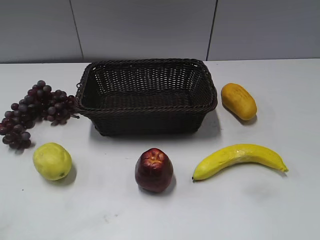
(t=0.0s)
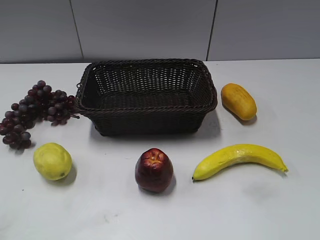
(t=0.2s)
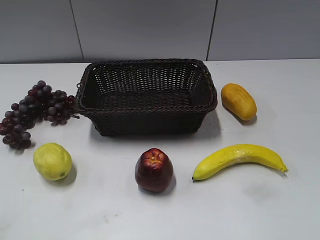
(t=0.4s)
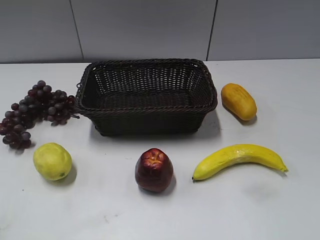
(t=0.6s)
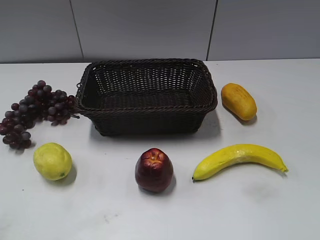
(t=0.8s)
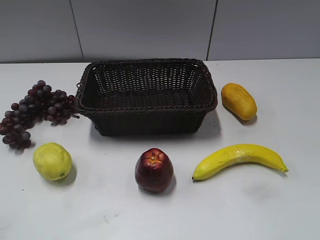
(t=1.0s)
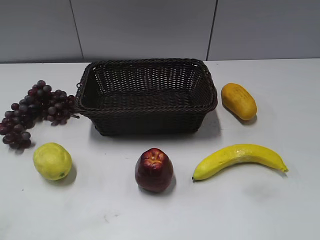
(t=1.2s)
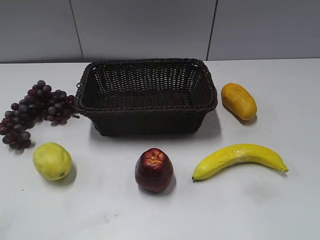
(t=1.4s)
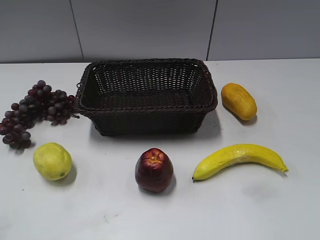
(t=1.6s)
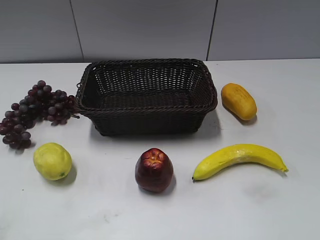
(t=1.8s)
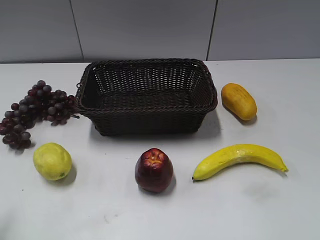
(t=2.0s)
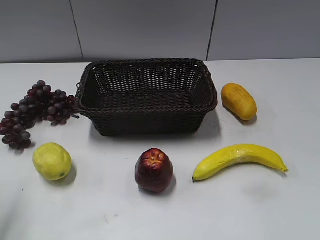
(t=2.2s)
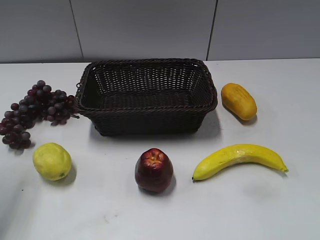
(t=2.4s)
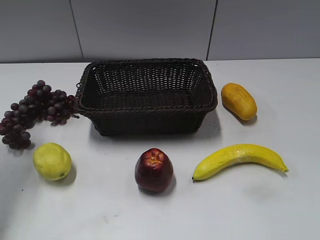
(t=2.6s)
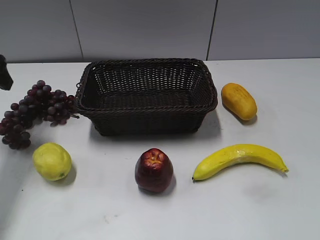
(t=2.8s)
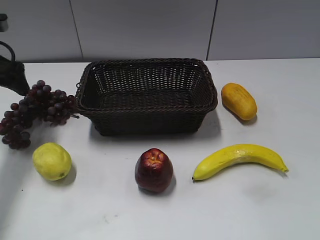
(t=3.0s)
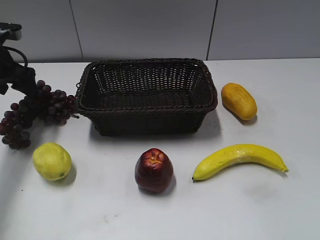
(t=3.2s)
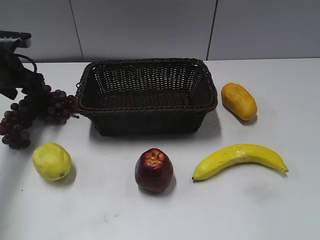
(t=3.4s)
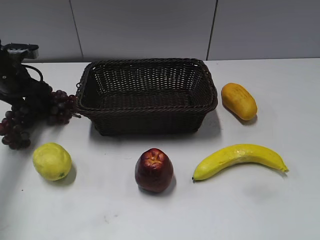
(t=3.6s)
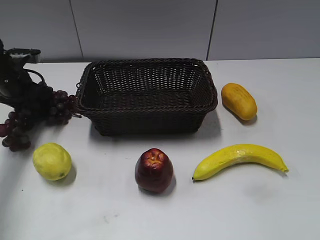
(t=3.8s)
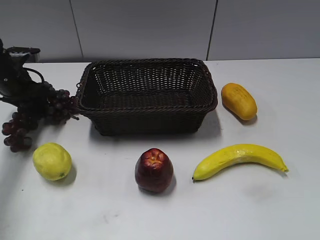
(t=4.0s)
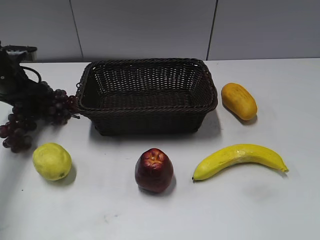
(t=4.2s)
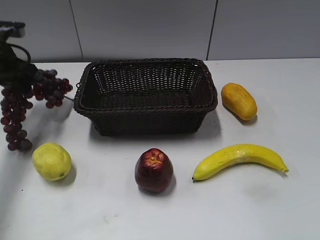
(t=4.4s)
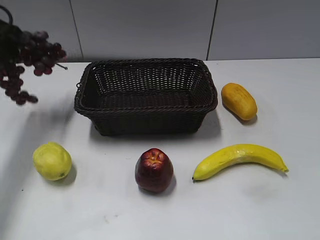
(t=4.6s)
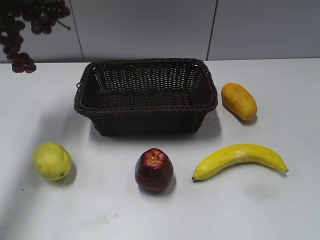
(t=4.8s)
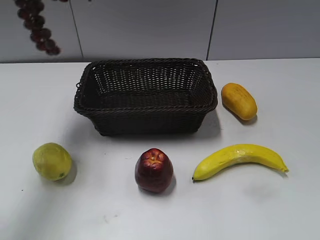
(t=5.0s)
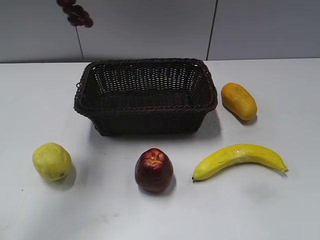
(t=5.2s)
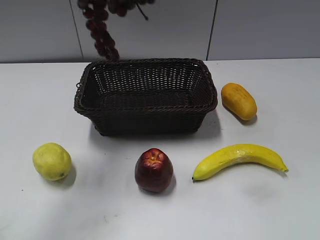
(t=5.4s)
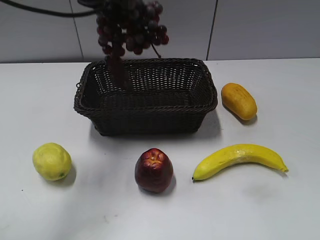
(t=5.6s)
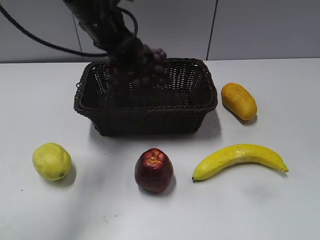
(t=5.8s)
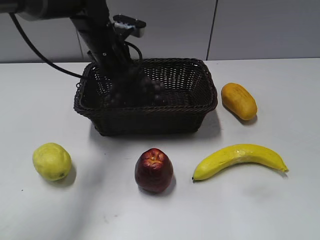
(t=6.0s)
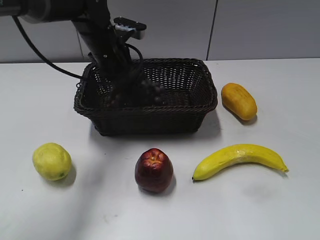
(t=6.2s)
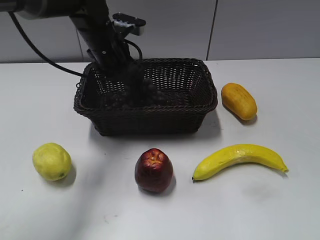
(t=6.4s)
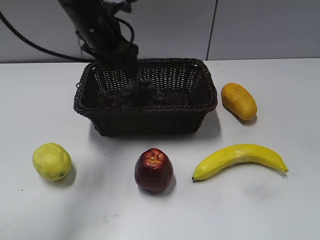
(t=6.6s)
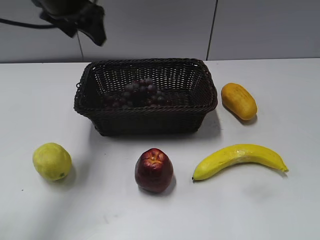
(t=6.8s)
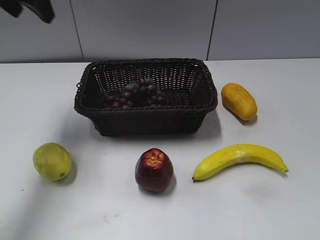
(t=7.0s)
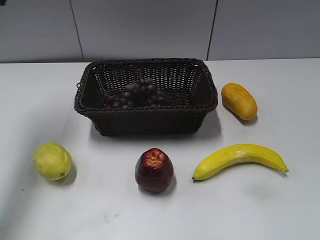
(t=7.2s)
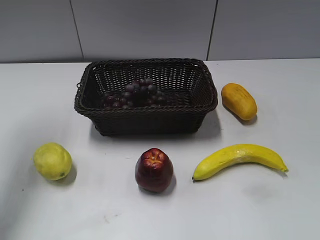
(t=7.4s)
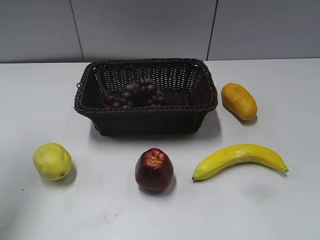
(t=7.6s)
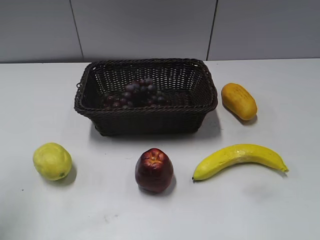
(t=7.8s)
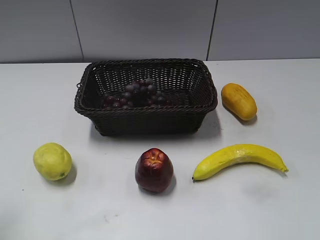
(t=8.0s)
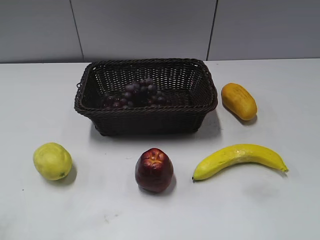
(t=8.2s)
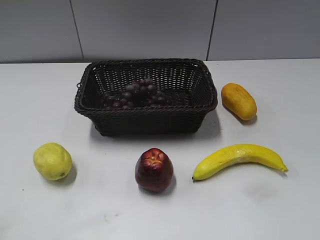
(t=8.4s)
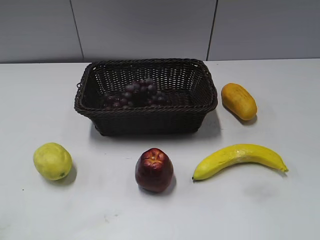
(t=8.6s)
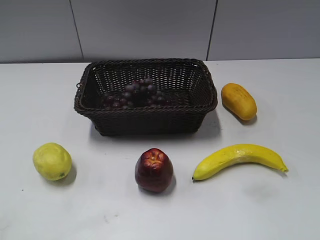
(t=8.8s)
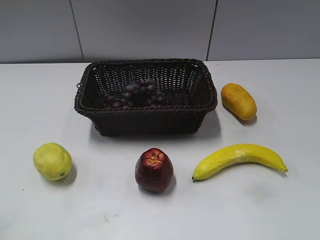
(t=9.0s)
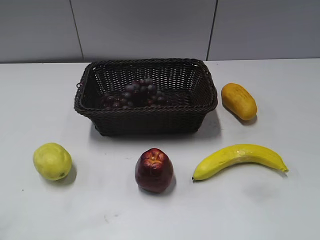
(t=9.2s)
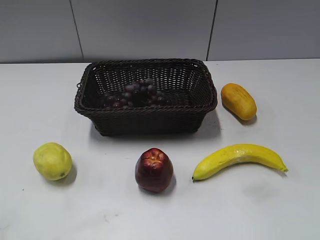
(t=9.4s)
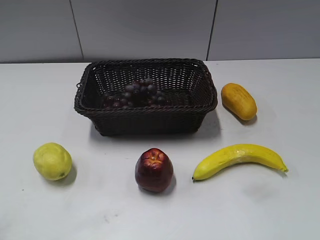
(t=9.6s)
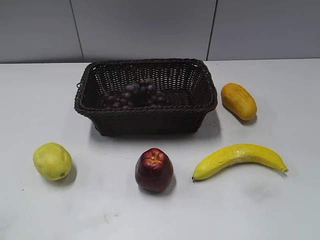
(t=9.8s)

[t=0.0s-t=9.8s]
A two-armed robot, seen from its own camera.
Step, t=2.8s to t=3.6s: Grasp the grape with left gripper.
Step, t=4.0s to t=6.2s: Place the grape in the basket with left gripper.
t=1.4s to t=2.8s: The left gripper moves forward, some 35 cm.
t=2.8s to t=4.2s: The left gripper moves downward and forward, about 15 cm, and closes up.
t=4.2s to t=5.6s: The left gripper is displaced to the right and upward by some 25 cm.
t=5.6s to t=7.0s: The left gripper heads to the left, covering roughly 10 cm, goes downward and returns, some 15 cm each way, and opens up.
t=7.0s to t=8.4s: The left gripper shifts approximately 35 cm backward.

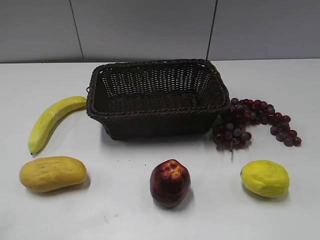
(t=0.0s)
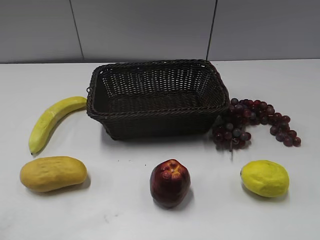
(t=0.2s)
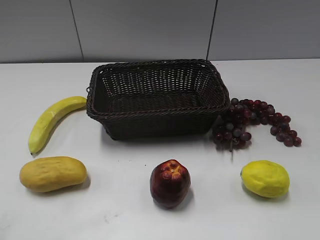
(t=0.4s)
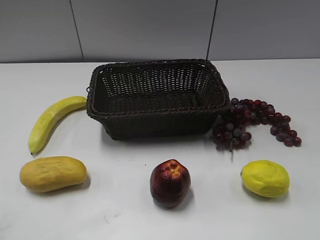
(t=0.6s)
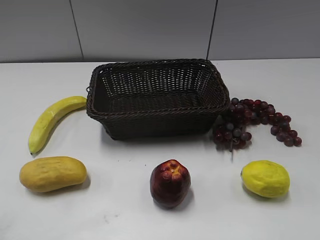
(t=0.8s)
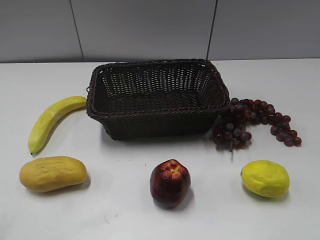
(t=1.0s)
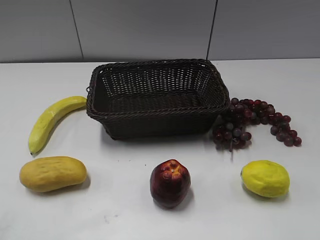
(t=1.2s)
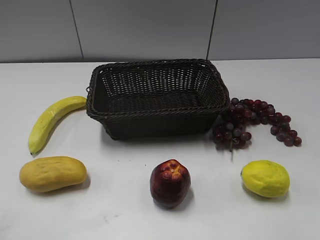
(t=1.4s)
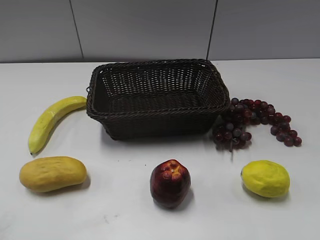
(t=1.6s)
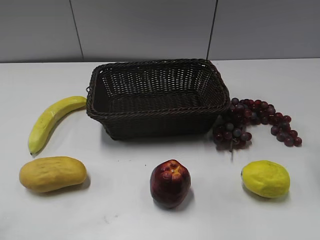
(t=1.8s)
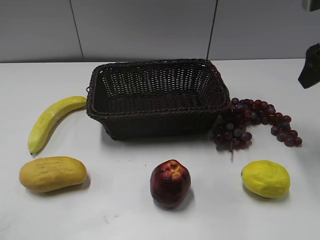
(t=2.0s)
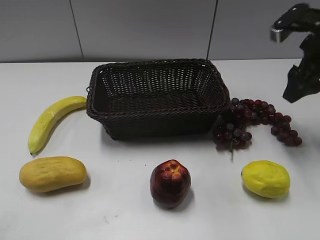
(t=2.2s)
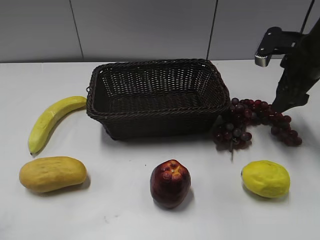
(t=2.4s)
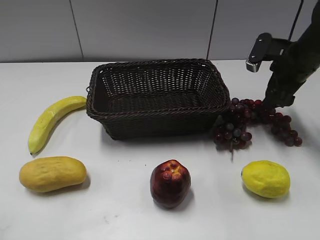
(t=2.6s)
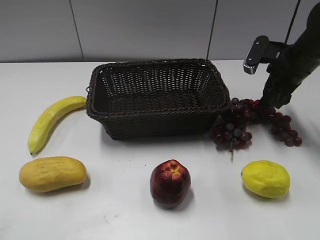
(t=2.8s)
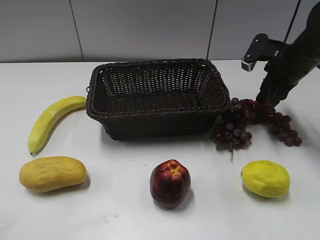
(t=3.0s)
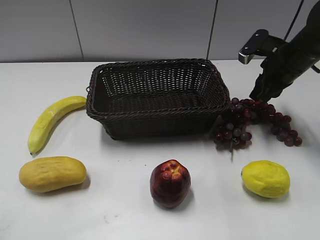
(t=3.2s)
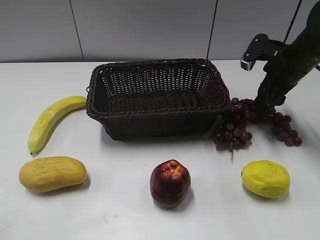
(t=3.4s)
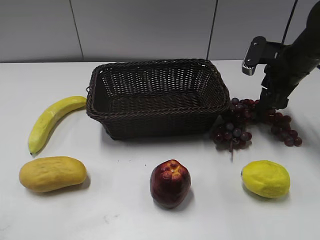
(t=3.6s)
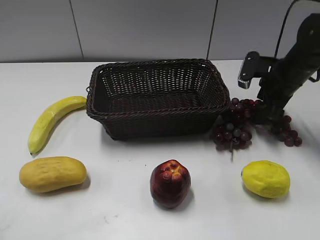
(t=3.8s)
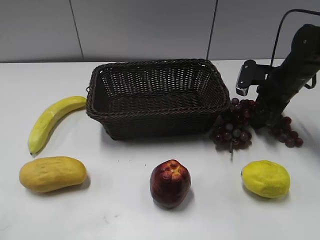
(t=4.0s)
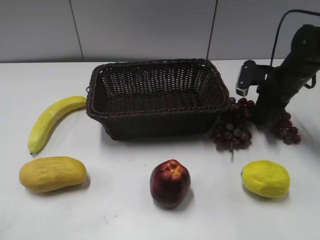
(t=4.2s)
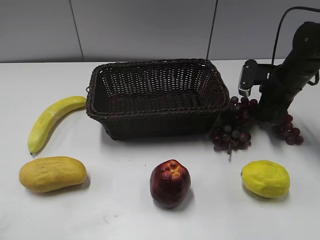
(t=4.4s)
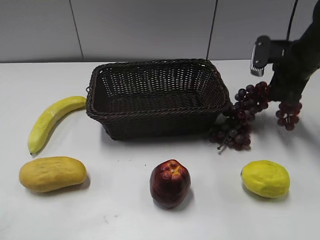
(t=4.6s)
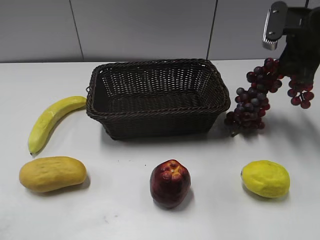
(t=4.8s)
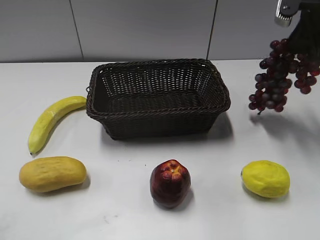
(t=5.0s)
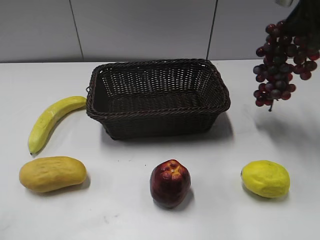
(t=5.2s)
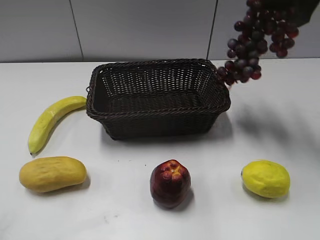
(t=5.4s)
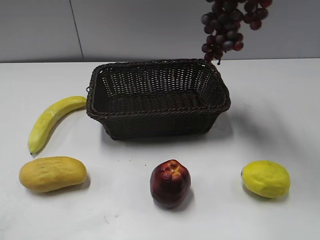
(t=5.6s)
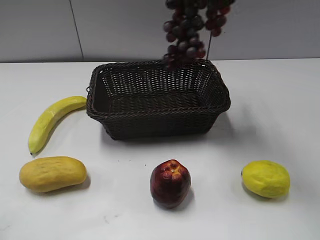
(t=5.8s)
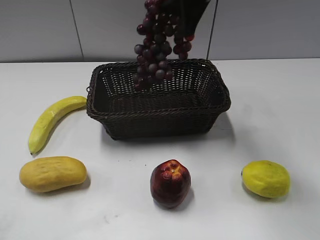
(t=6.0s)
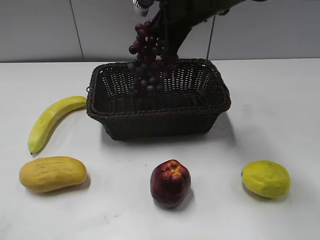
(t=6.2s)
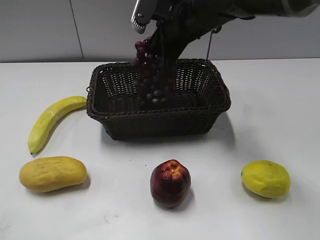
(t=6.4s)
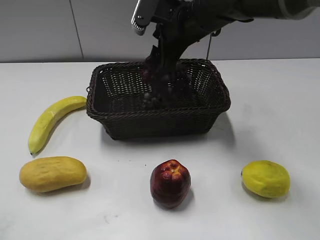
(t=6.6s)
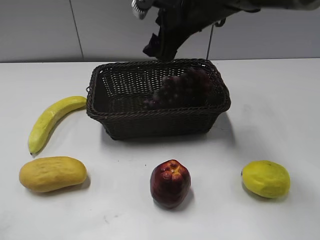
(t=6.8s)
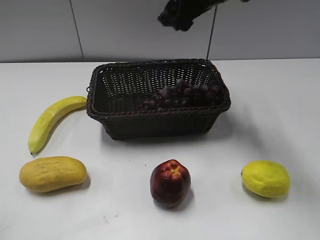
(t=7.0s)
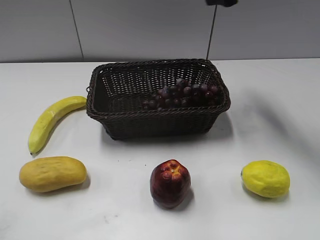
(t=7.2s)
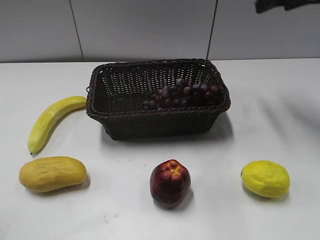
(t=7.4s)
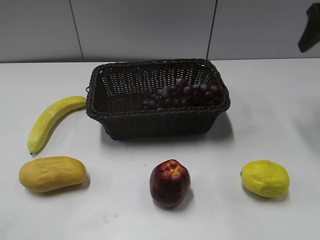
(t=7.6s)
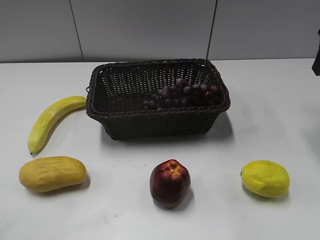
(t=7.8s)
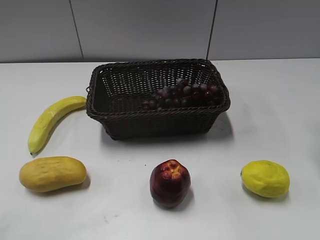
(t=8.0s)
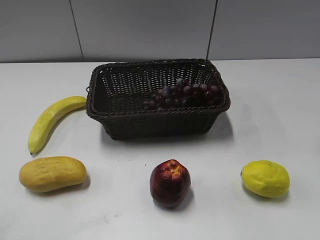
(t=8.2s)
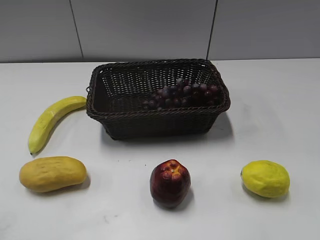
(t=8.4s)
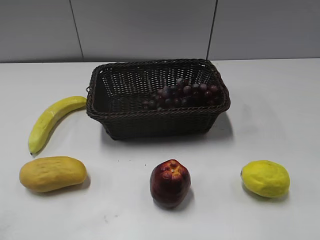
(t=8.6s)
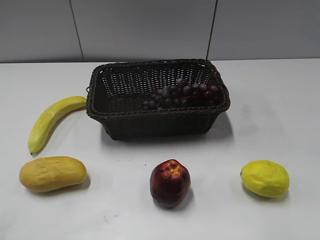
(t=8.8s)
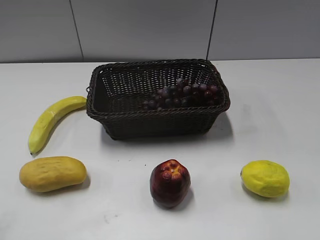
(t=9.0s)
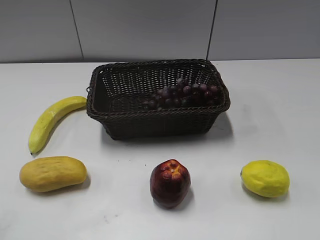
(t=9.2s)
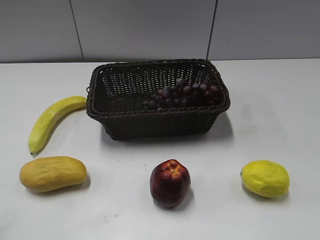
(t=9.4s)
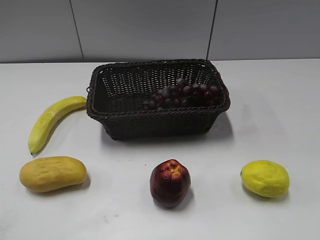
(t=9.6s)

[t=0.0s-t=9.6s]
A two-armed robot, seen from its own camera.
Step, t=2.0s to t=4.2s: Grasp the grape with right gripper.
Step, t=4.4s to t=6.4s: Place the grape in the basket with right gripper.
t=1.6s to t=3.2s: The right gripper is displaced forward and downward by some 25 cm, and closes.
t=3.2s to t=4.8s: The right gripper shifts roughly 10 cm upward, and opens, then closes again.
t=4.8s to t=6.4s: The right gripper heads to the left, covering roughly 20 cm.
t=6.4s to t=8.0s: The right gripper shifts about 25 cm to the right, and opens up.
